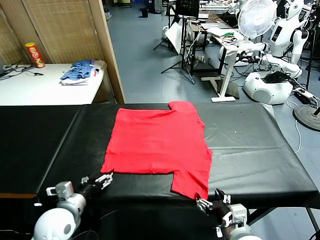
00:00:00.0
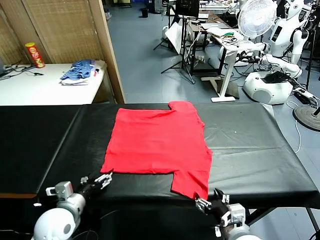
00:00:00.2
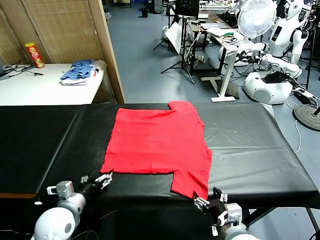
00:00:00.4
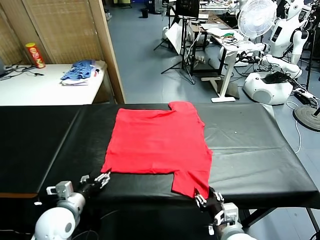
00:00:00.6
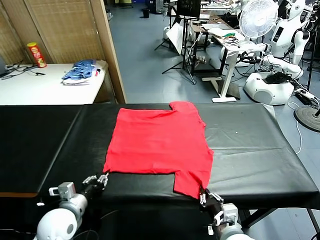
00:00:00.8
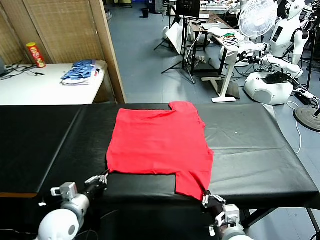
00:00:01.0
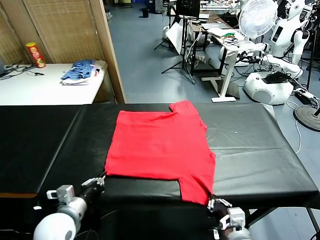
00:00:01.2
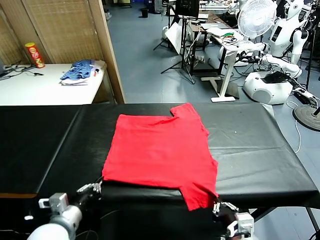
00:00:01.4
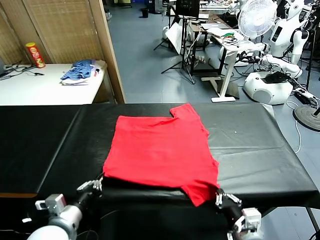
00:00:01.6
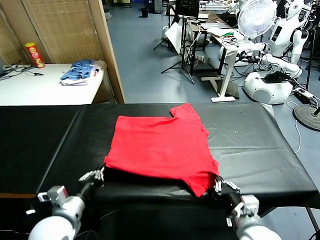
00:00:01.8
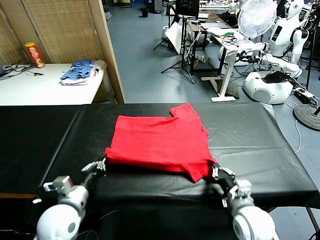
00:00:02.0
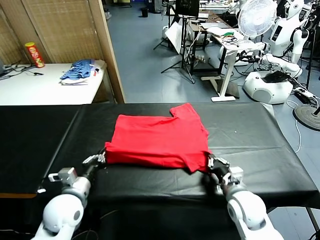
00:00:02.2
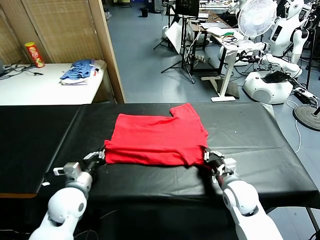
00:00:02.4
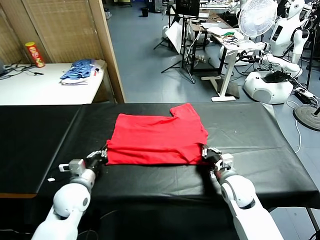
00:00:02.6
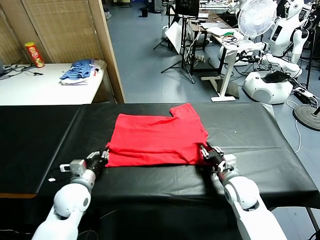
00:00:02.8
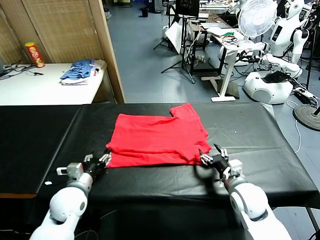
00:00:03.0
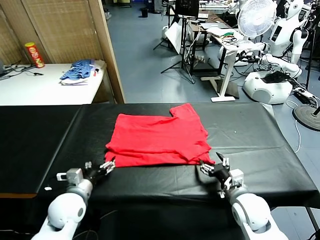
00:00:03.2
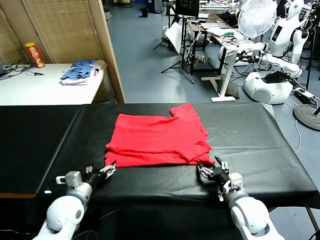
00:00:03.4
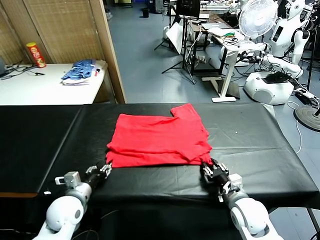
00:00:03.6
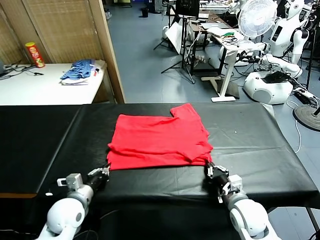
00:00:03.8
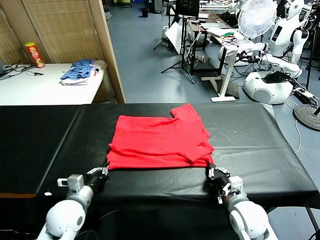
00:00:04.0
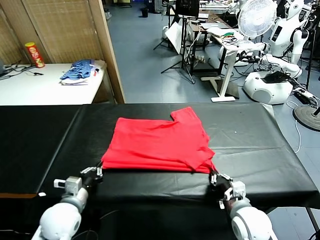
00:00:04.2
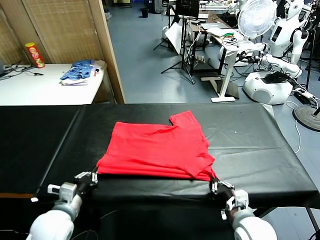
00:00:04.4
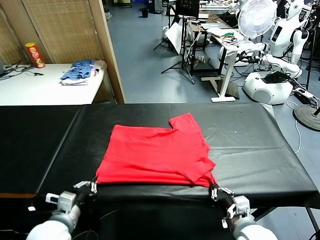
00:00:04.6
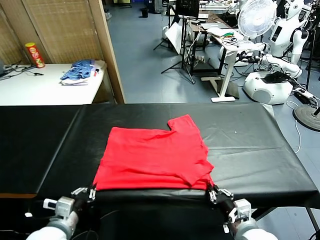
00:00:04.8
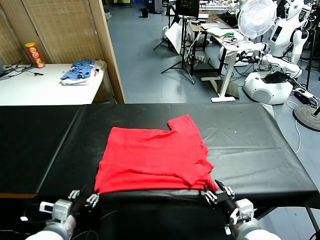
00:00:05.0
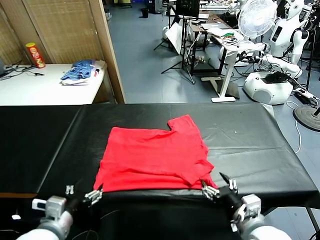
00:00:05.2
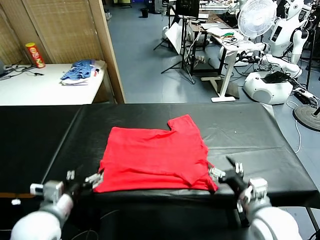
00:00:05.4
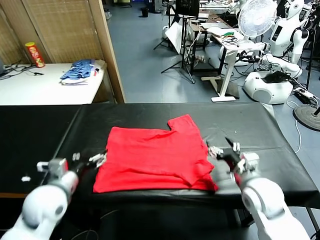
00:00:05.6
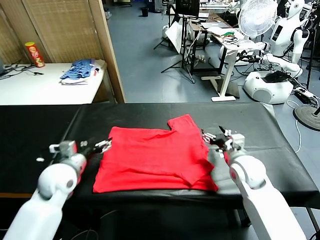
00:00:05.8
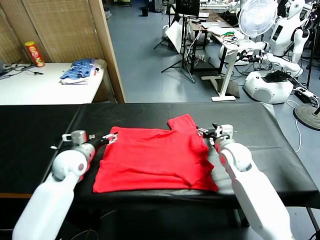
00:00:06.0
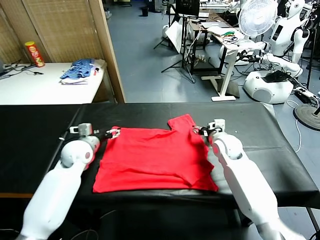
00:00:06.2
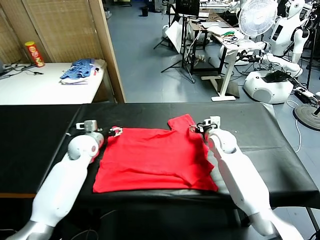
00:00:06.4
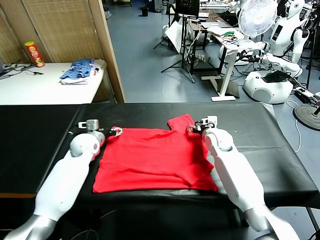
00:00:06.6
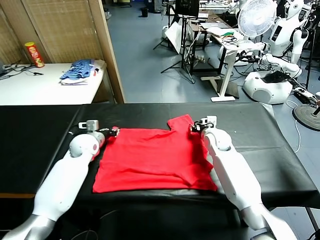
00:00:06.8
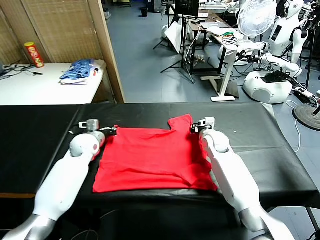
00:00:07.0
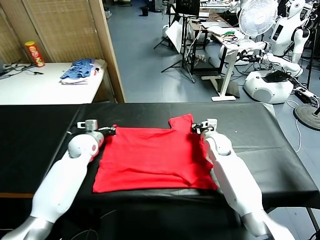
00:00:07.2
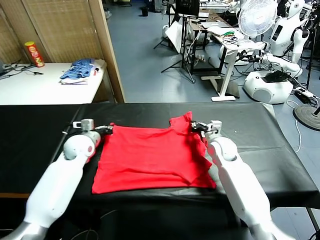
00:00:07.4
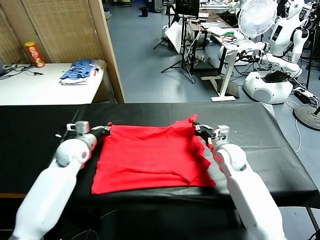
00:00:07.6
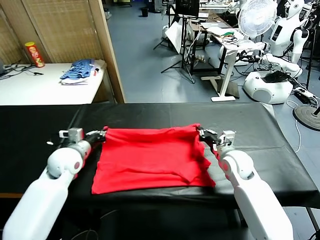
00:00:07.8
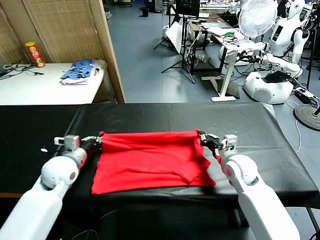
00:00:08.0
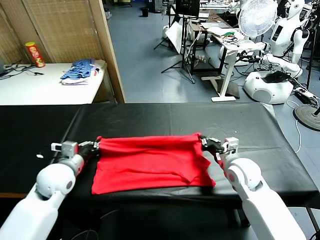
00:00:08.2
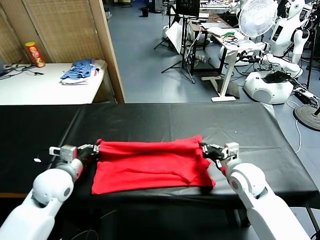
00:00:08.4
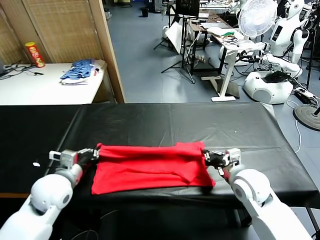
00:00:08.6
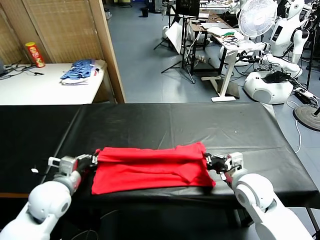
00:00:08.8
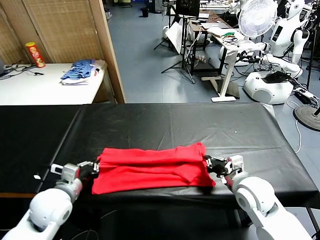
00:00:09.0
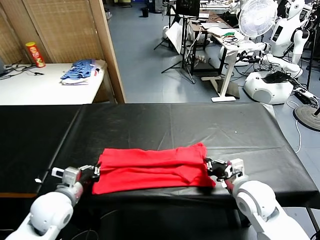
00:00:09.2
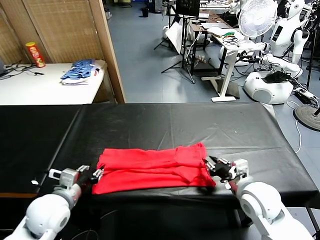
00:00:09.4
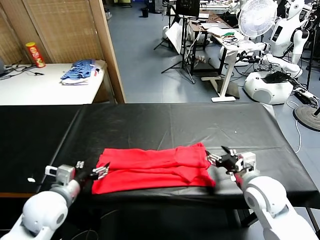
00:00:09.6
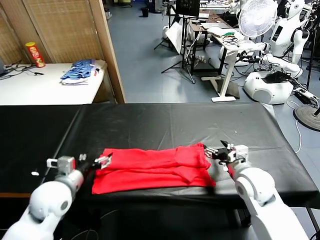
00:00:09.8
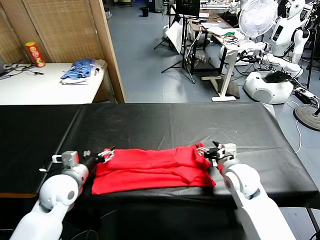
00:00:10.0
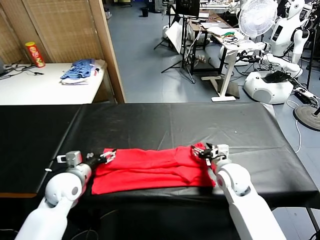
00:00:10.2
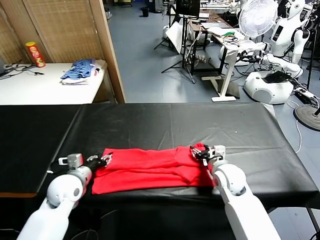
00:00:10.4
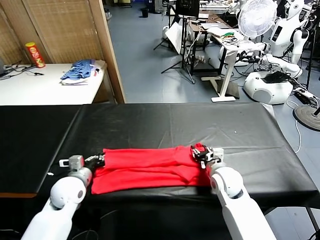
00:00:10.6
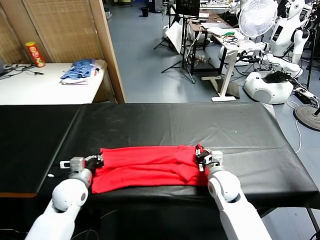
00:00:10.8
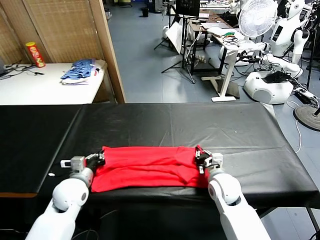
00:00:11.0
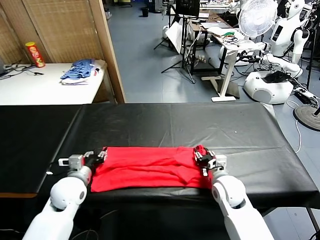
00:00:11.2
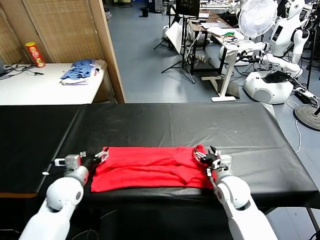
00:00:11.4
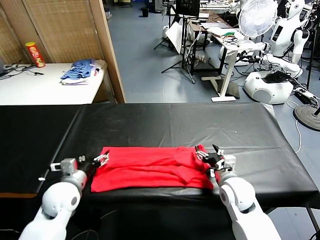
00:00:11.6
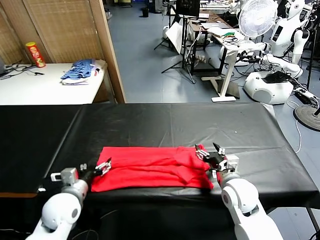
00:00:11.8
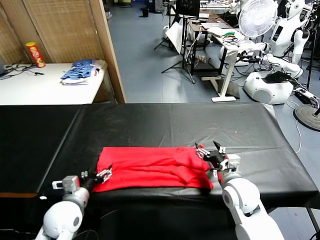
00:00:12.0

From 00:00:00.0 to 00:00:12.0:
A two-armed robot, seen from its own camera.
Task of the whole recording: fold and organize the clothes.
Step, from 00:00:00.0 to 00:00:01.4: use both grippers simultaneously to clamp the lower edge of the clothing fabric.
Step, from 00:00:01.6 to 00:00:03.0: use both grippers to drag the lower edge of the fabric forward and fold it over the upper edge.
Step, from 00:00:03.2 to 00:00:05.0: Drag the clothes downward with both gripper.
Step, from 00:00:05.4 to 00:00:07.2: use both grippers simultaneously to clamp the upper edge of the clothing fabric.
Step, from 00:00:07.6 to 00:00:09.4: use both grippers to drag the upper edge of the fabric backward and fold it over the lower edge.
From 00:00:01.6 to 00:00:03.0: Both grippers travel together forward, some 10 cm. The right gripper opens its fingers, while the left gripper opens up.
From 00:00:03.0 to 00:00:04.4: Both grippers travel together backward, some 10 cm. The right gripper closes its fingers. Meanwhile the left gripper closes up.
From 00:00:04.4 to 00:00:06.0: The right gripper shifts some 30 cm forward, and opens up, while the left gripper goes about 20 cm forward, and opens.
From 00:00:06.0 to 00:00:07.6: The right gripper travels backward by some 5 cm, and closes its fingers. Meanwhile the left gripper reaches roughly 10 cm forward, then returns, and closes up.
From 00:00:07.6 to 00:00:09.0: Both grippers travel together backward, roughly 15 cm.
From 00:00:09.0 to 00:00:10.4: The right gripper goes some 10 cm forward and downward, and opens up, while the left gripper goes roughly 5 cm forward, and opens up.
From 00:00:10.4 to 00:00:12.0: Both grippers travel together backward, roughly 5 cm. The left gripper opens up, while the right gripper opens its fingers.

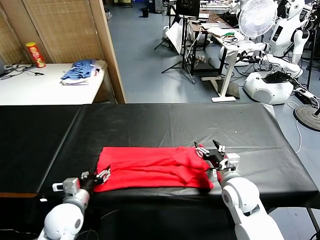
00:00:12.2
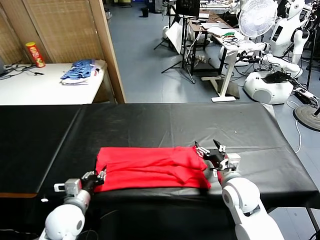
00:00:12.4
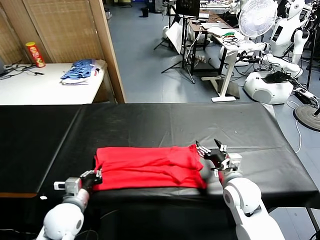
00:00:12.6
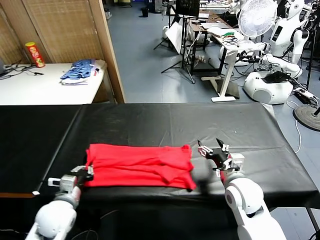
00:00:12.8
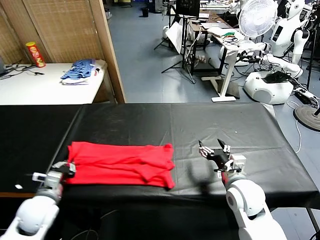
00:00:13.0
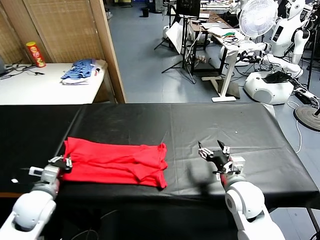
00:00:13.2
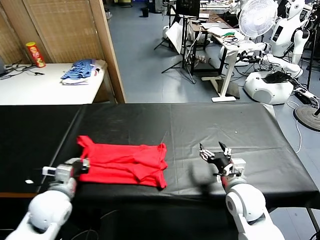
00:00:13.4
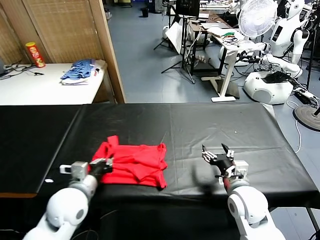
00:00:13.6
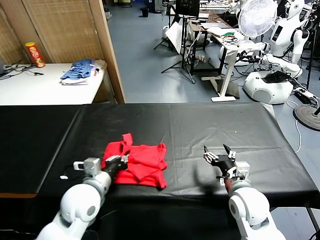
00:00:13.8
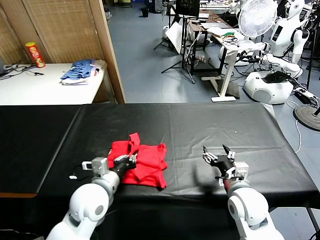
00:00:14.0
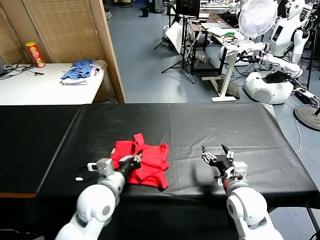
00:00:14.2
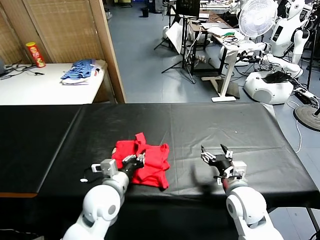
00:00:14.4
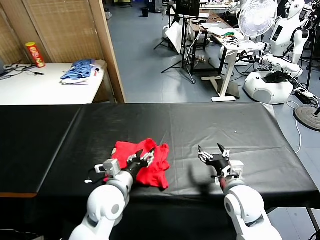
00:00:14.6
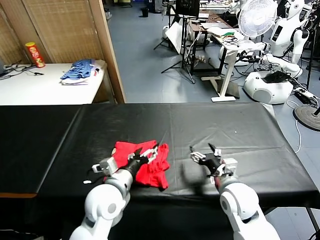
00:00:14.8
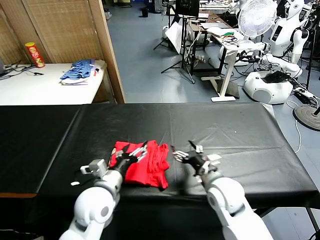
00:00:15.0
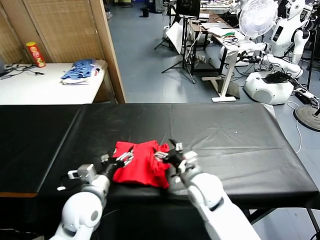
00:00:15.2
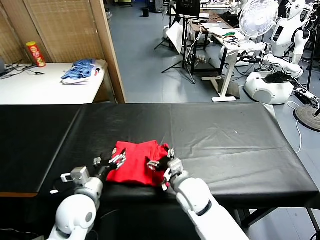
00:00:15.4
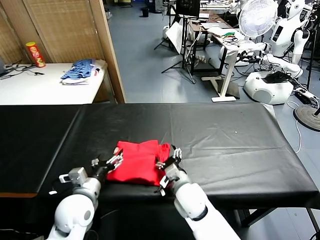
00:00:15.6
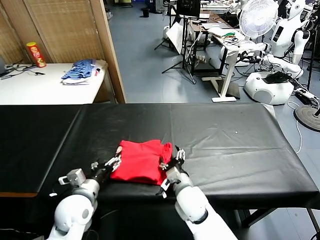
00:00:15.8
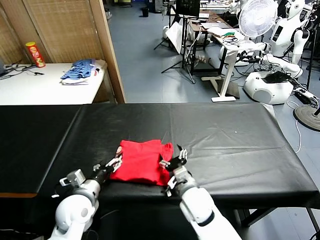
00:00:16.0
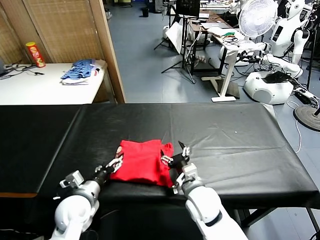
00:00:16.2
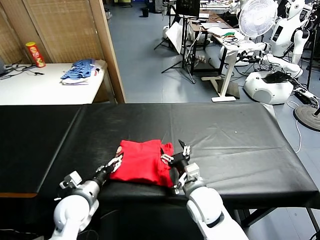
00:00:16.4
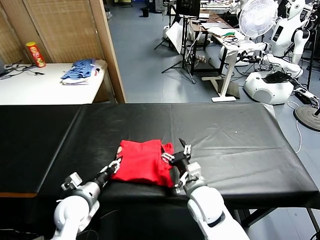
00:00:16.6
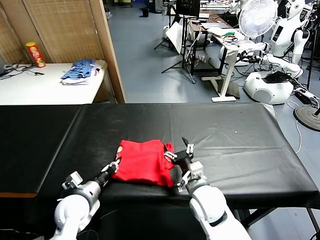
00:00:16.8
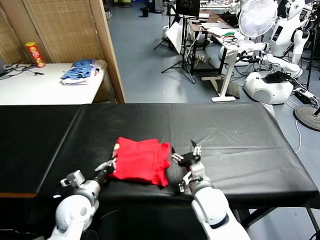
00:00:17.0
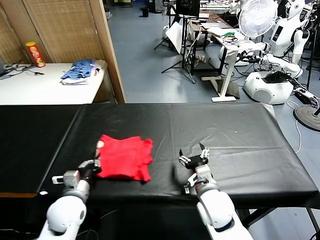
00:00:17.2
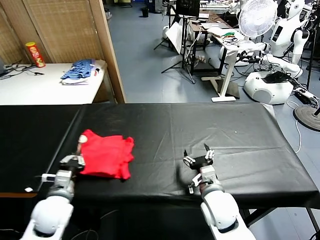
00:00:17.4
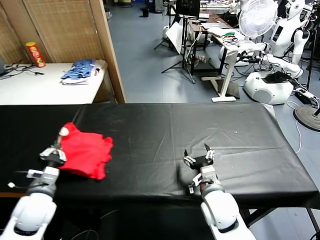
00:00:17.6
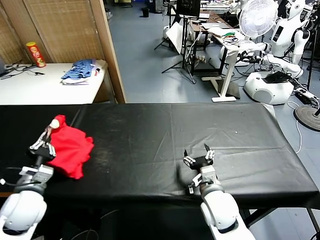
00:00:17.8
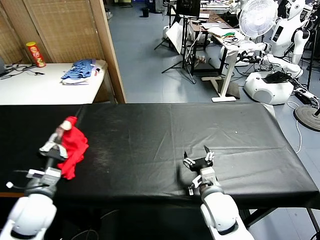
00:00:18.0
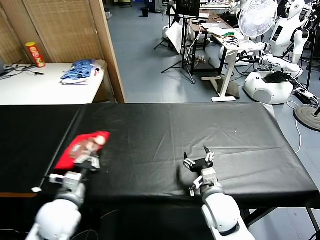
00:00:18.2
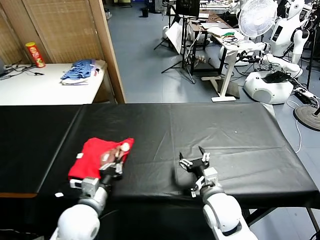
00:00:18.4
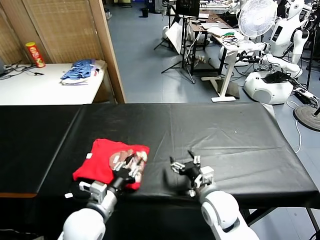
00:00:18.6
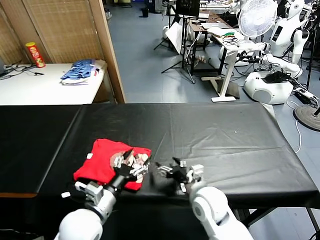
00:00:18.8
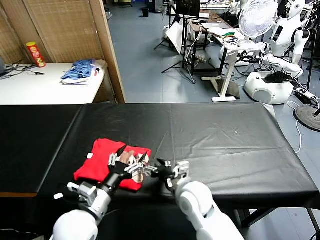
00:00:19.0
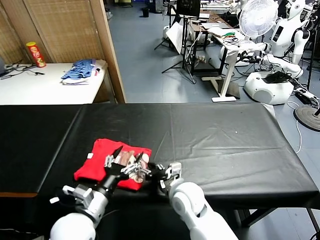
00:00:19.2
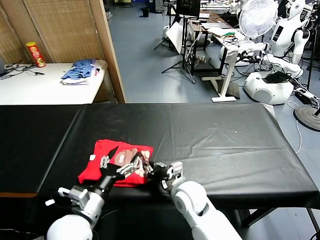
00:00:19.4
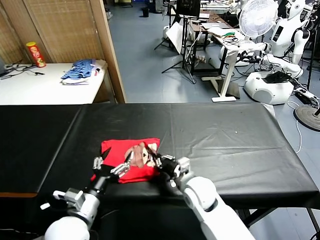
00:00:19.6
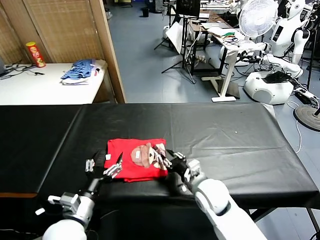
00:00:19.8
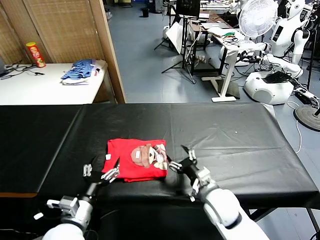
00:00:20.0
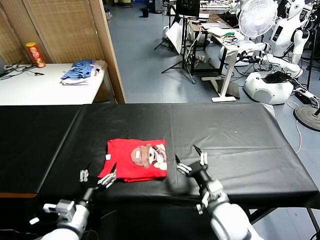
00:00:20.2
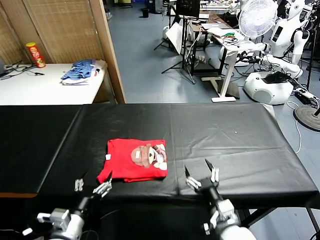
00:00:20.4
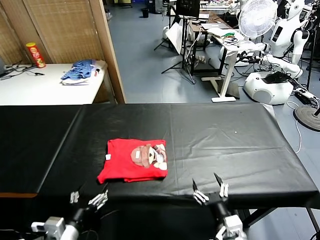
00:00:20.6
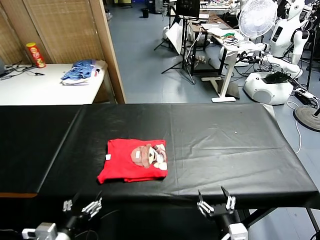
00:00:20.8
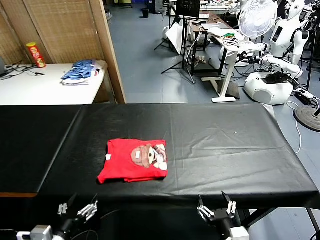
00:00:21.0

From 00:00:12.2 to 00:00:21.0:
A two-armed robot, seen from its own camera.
Task of the whole recording: fold and organize the clothes.
Step, from 00:00:13.0 to 00:00:14.6: use the left gripper to drag the left edge of the fabric to the left and folds it over the right edge.
Step, from 00:00:15.0 to 00:00:18.6: Flip the folded clothes over with left gripper.
Step, from 00:00:18.8 to 00:00:20.0: Drag the clothes to the center of the table.
From 00:00:12.2 to 00:00:13.6: The left gripper moves upward, some 5 cm, travels to the left and back again, about 5 cm each way, and closes up.
From 00:00:13.6 to 00:00:15.2: The left gripper opens. The right gripper is displaced to the left by approximately 15 cm.
From 00:00:15.2 to 00:00:16.6: The left gripper travels downward and to the left by about 10 cm, and closes.
From 00:00:16.6 to 00:00:18.0: The left gripper is displaced upward and to the left by about 10 cm, and closes up.
From 00:00:18.0 to 00:00:19.6: The left gripper goes roughly 10 cm to the right, and opens. Meanwhile the right gripper shifts approximately 5 cm forward, and closes up.
From 00:00:19.6 to 00:00:21.0: The left gripper is displaced backward and to the left by roughly 10 cm. The right gripper travels backward by roughly 20 cm, and opens its fingers.
